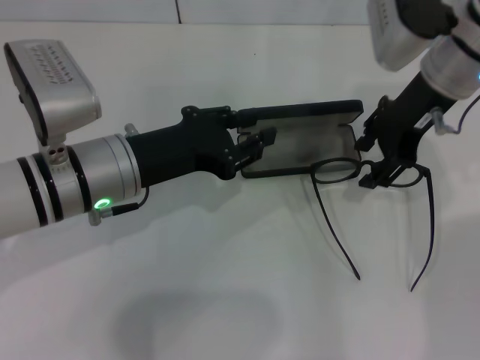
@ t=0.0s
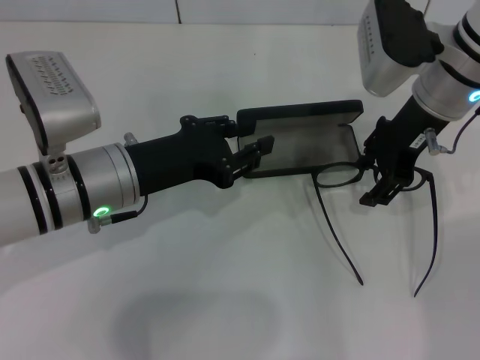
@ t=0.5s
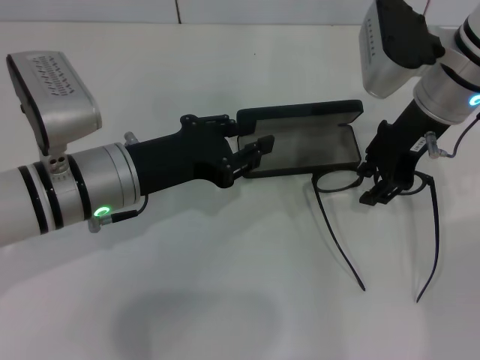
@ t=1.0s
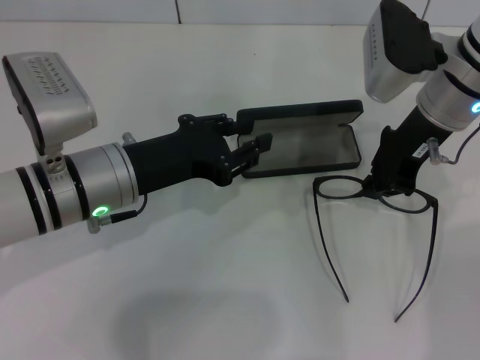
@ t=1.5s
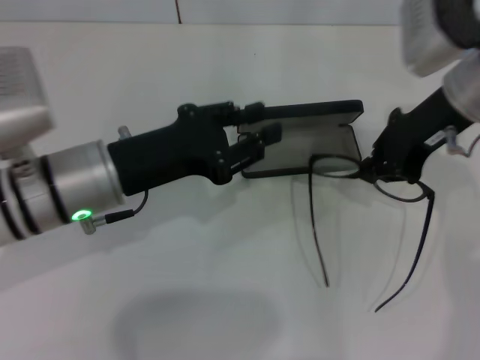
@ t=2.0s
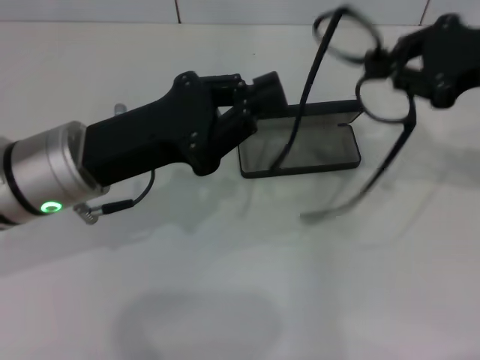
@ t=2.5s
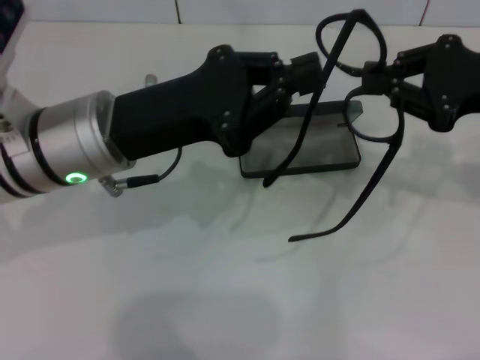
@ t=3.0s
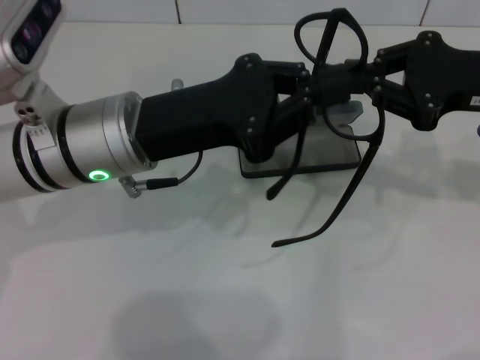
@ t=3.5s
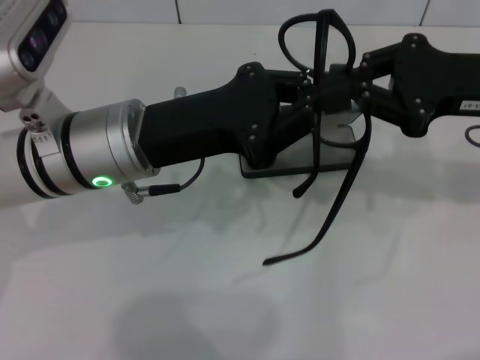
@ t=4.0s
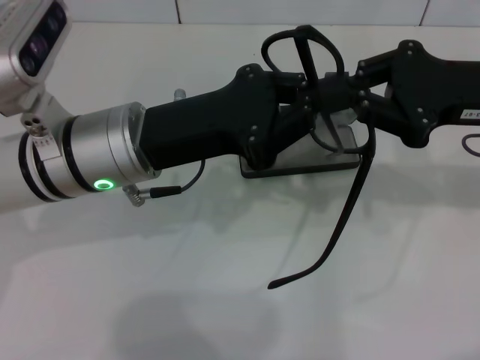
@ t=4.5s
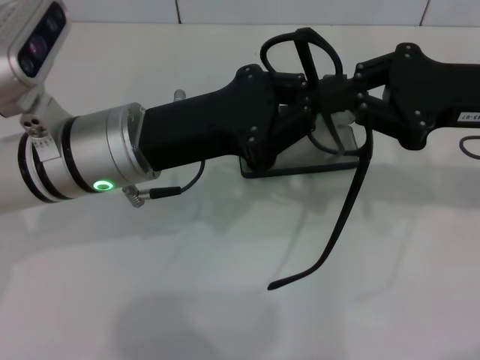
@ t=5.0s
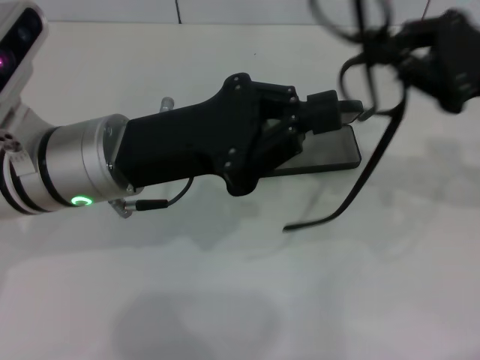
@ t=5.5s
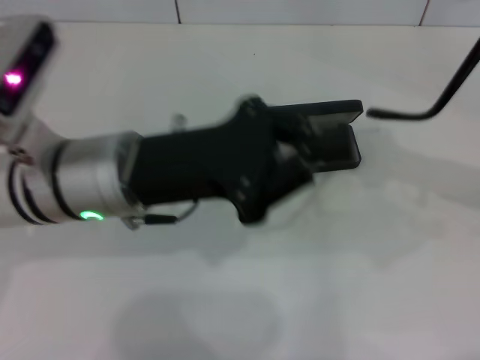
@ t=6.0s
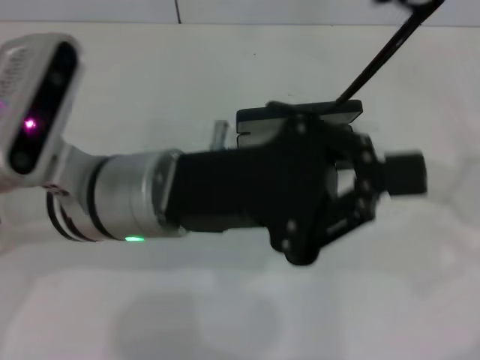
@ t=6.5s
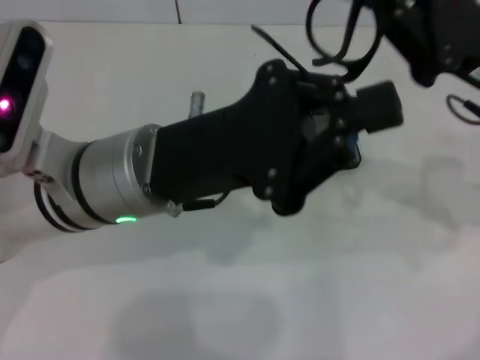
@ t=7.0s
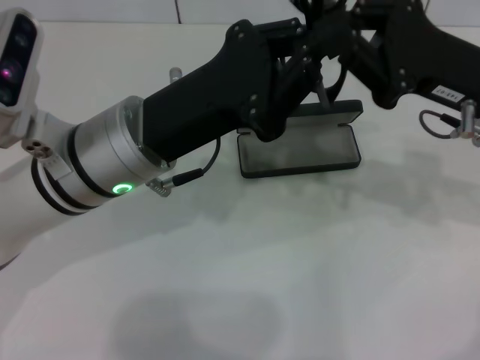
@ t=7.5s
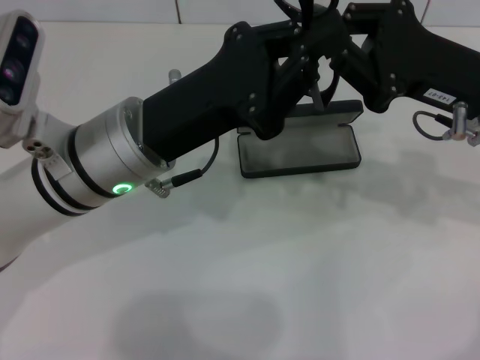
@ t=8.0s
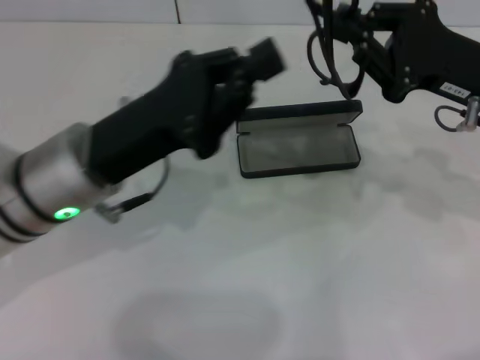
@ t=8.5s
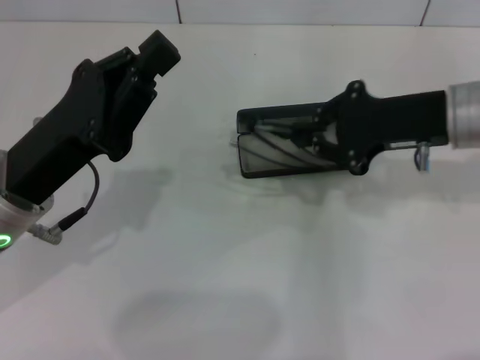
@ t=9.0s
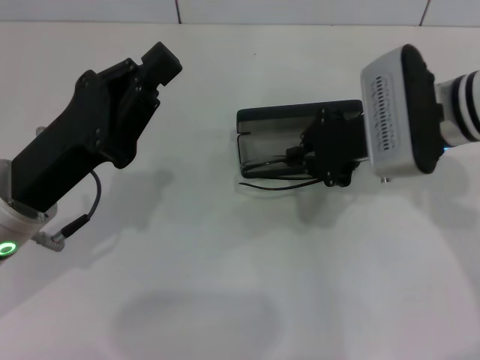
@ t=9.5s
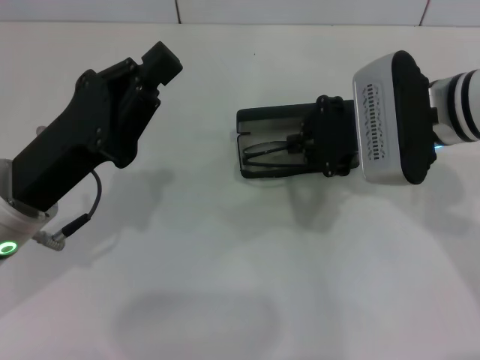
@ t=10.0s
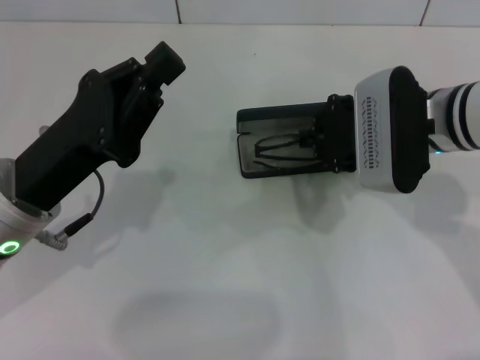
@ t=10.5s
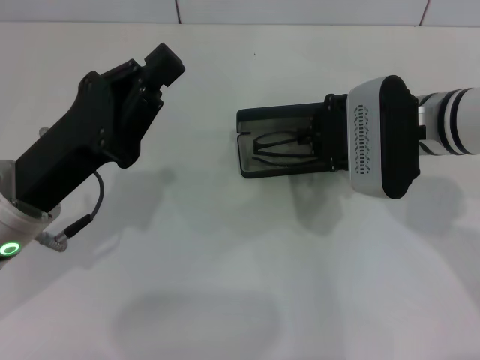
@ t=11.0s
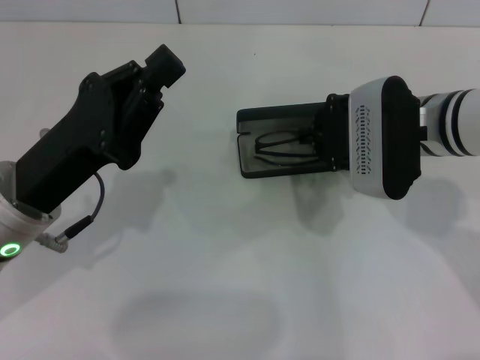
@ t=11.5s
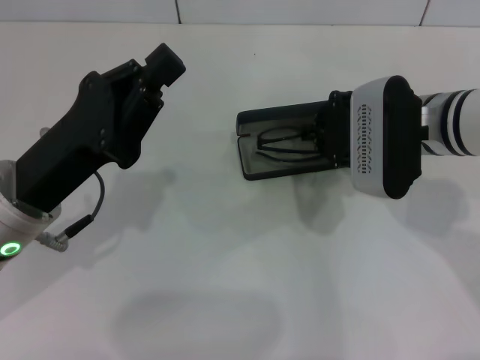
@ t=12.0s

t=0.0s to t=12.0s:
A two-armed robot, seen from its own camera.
Step, t=1.5s to t=8.0s: Fold the frame with your left hand.
t=0.0s to t=2.0s: The right gripper closes up.
t=2.0s to t=4.0s: The right gripper is displaced to the right and backward by approximately 5 cm.
t=4.0s to t=6.0s: The right gripper shifts about 5 cm to the right.
t=6.0s to t=8.0s: The right gripper travels to the left and downward by some 10 cm.
t=8.0s to t=10.0s: The grippers both shift to the left by roughly 10 cm.
t=10.0s to t=12.0s: The grippers make only small movements.

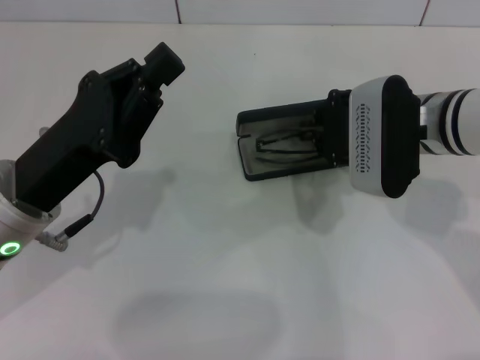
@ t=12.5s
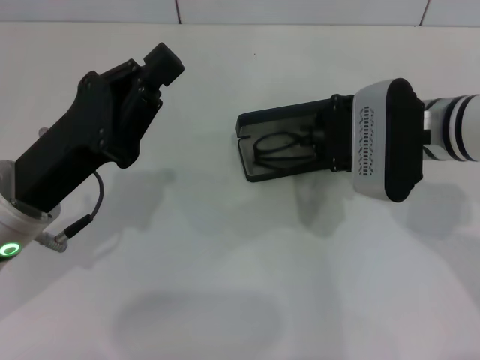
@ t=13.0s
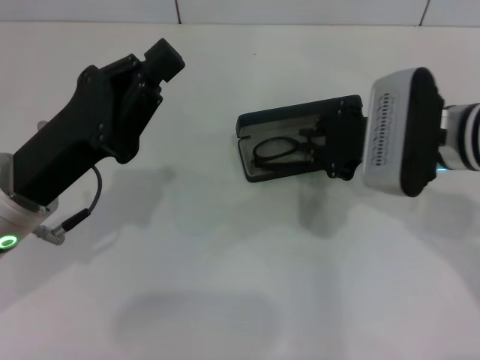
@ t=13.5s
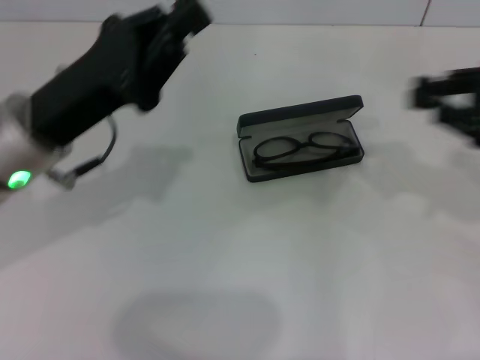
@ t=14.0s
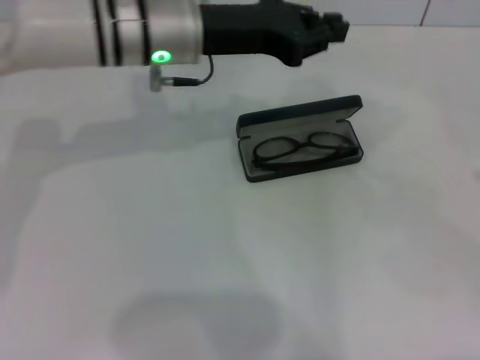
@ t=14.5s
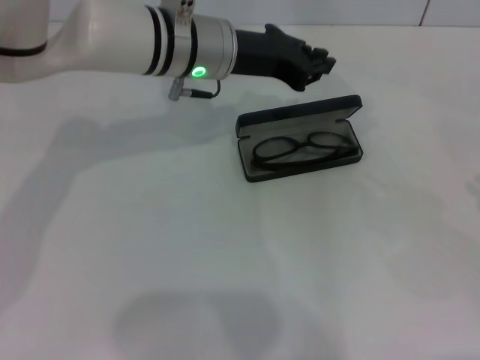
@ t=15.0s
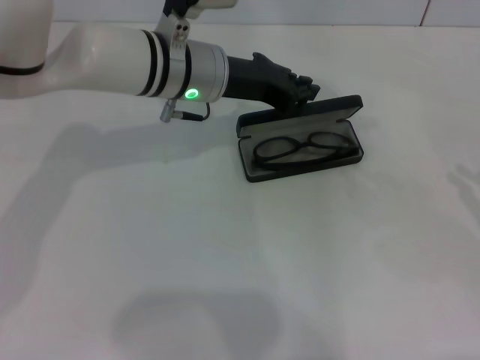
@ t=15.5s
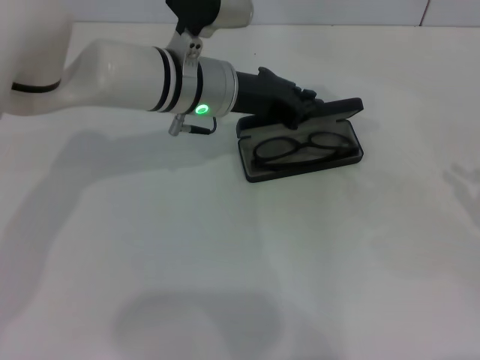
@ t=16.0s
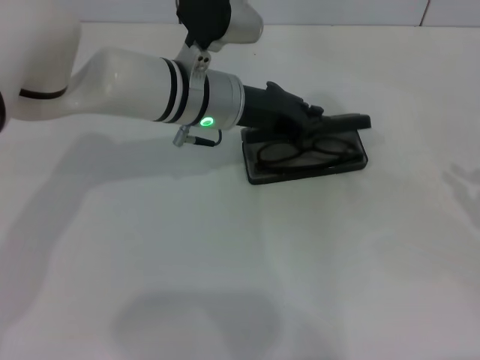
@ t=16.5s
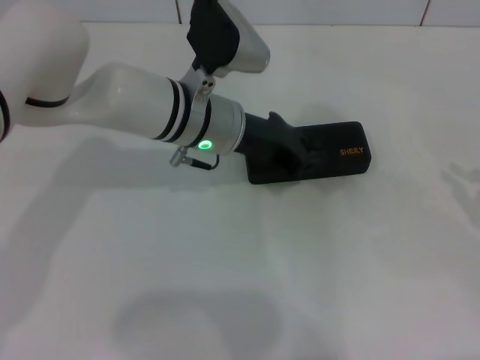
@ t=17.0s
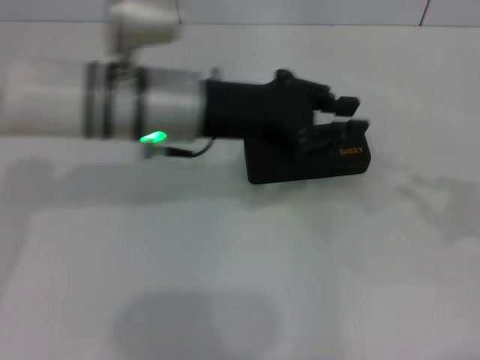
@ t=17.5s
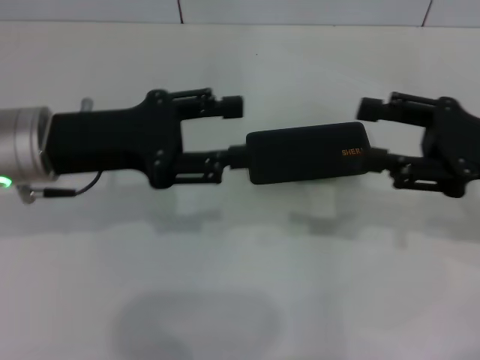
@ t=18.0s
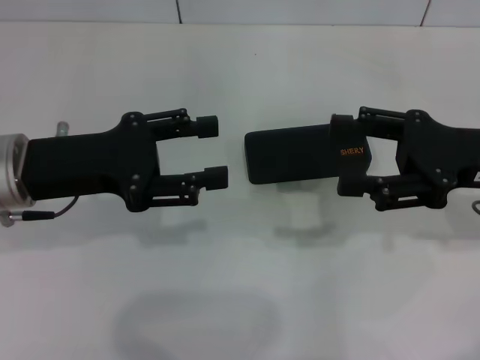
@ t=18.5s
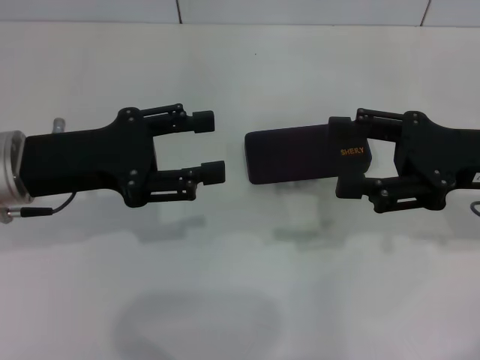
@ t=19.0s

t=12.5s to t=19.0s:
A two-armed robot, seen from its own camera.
Step, t=13.5s to t=17.0s: Close the glasses case with your left hand.
t=12.5s to t=14.5s: The right gripper travels to the right and backward by roughly 30 cm. Meanwhile the left gripper goes approximately 20 cm forward, to the right and upward.
t=14.5s to t=17.0s: The right gripper changes place by roughly 5 cm. Meanwhile the left gripper travels downward by about 5 cm.
t=17.0s to t=19.0s: The left gripper travels to the left and backward by some 20 cm, and opens up, while the right gripper moves to the left and forward, about 15 cm, and opens up.
